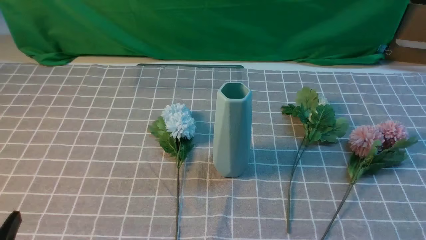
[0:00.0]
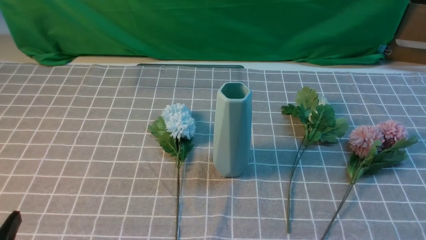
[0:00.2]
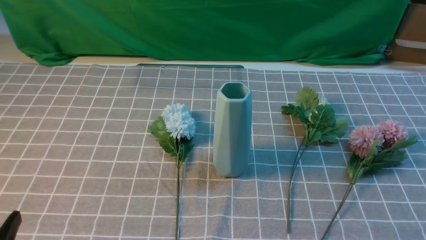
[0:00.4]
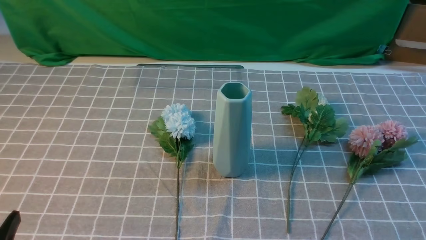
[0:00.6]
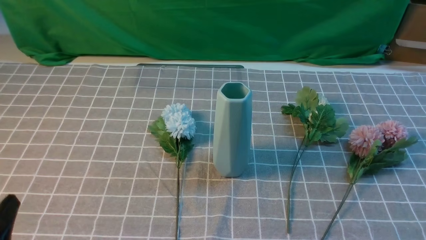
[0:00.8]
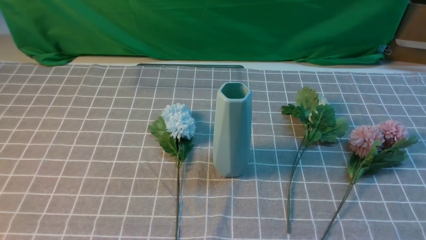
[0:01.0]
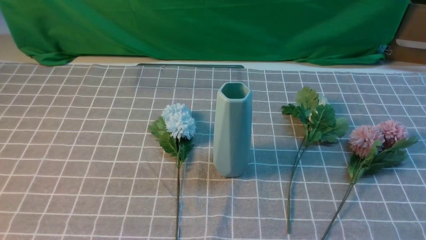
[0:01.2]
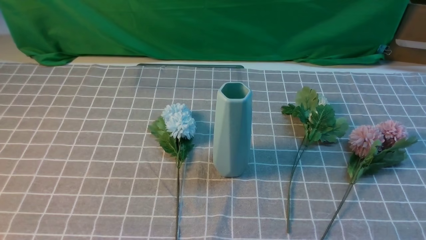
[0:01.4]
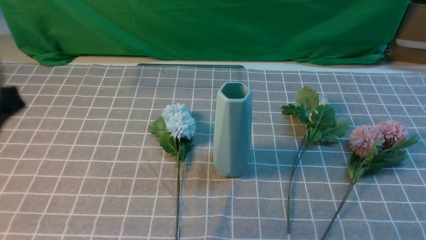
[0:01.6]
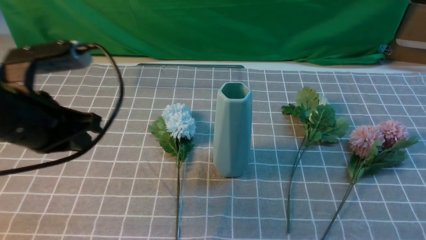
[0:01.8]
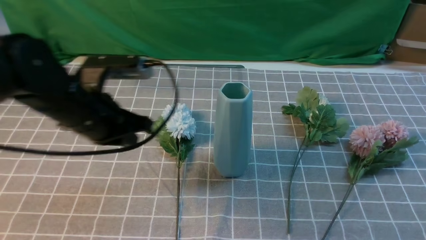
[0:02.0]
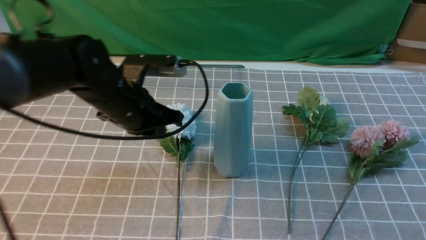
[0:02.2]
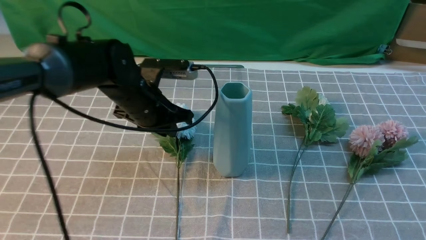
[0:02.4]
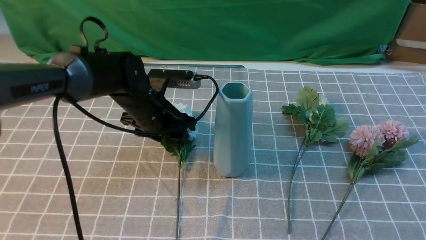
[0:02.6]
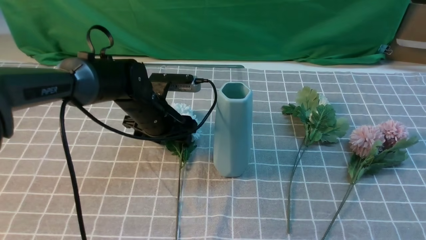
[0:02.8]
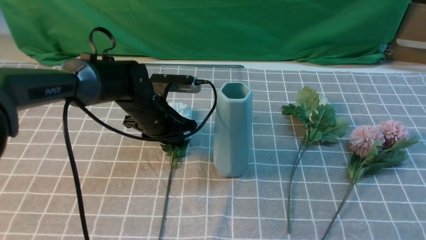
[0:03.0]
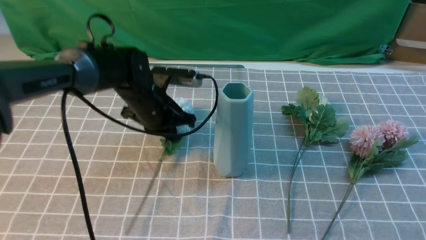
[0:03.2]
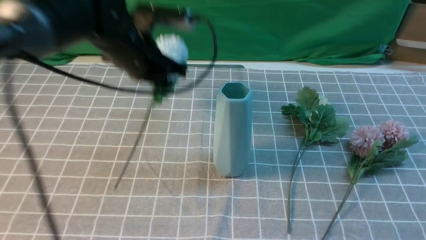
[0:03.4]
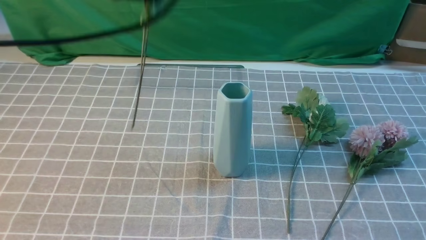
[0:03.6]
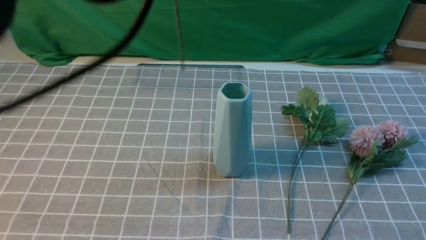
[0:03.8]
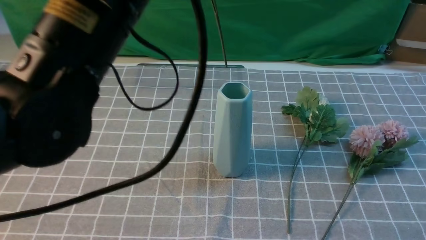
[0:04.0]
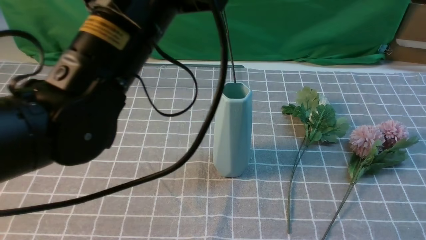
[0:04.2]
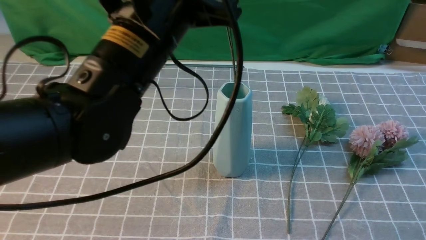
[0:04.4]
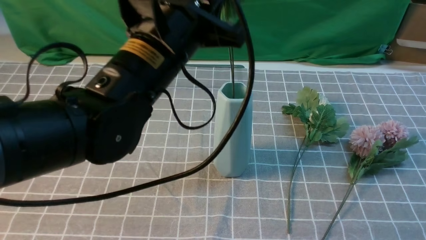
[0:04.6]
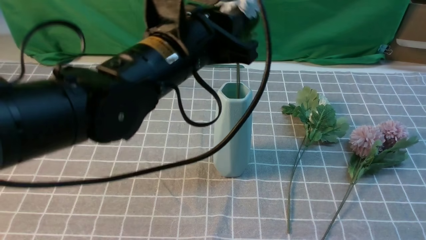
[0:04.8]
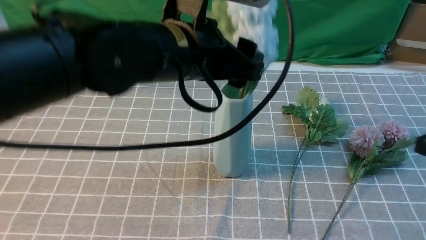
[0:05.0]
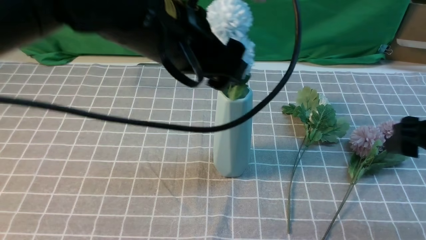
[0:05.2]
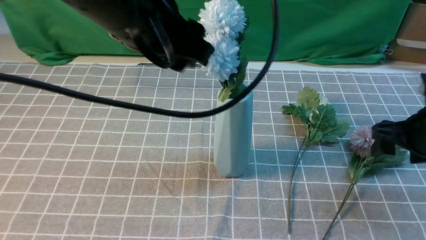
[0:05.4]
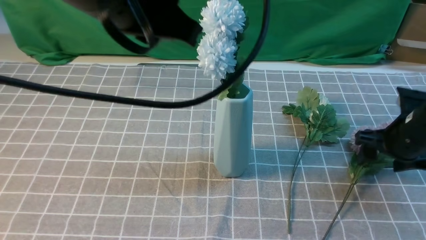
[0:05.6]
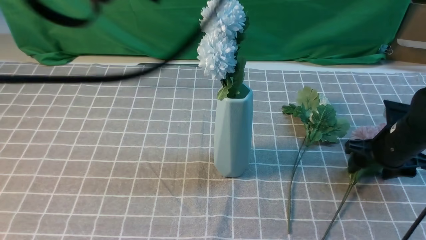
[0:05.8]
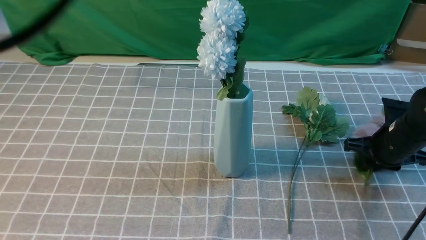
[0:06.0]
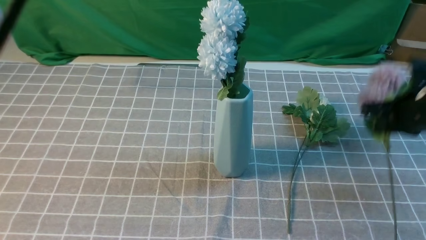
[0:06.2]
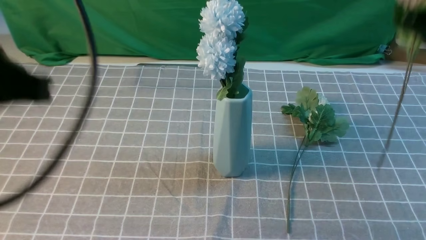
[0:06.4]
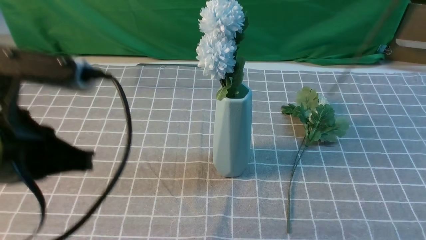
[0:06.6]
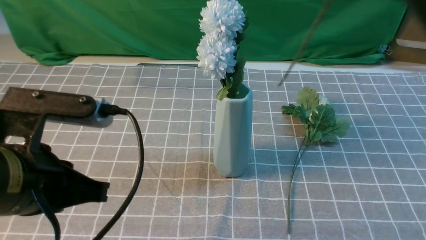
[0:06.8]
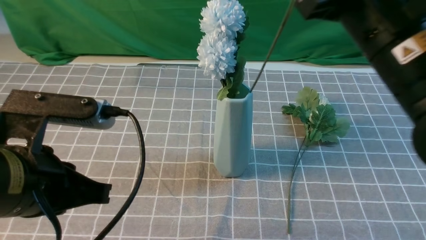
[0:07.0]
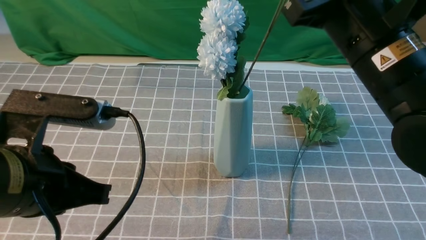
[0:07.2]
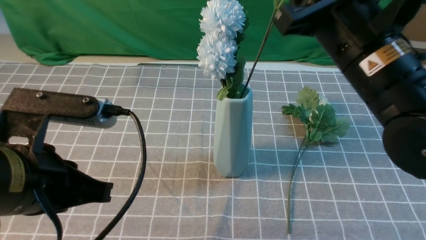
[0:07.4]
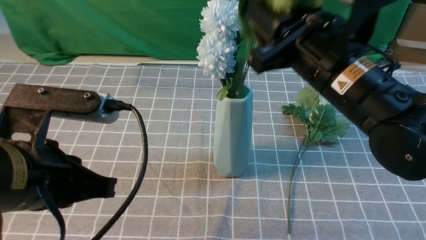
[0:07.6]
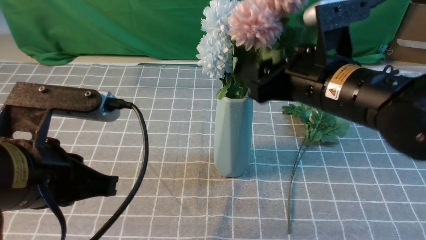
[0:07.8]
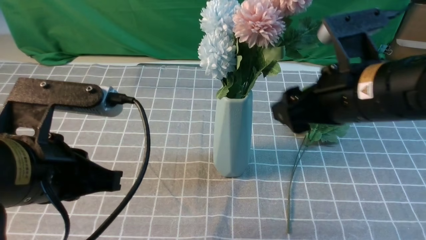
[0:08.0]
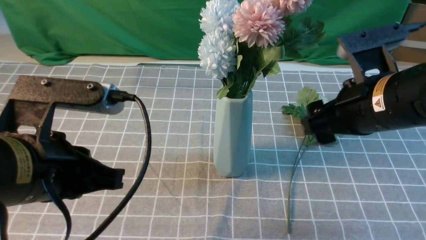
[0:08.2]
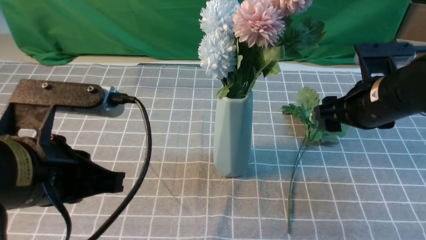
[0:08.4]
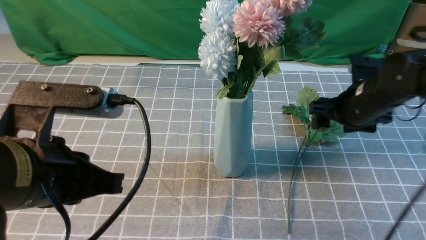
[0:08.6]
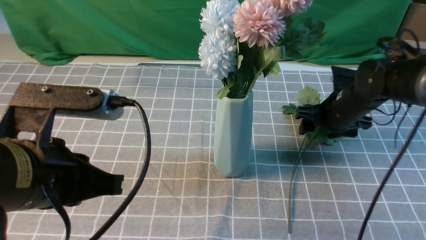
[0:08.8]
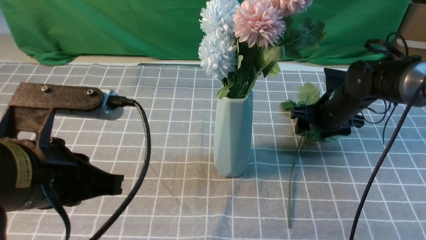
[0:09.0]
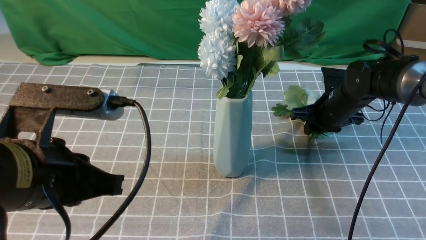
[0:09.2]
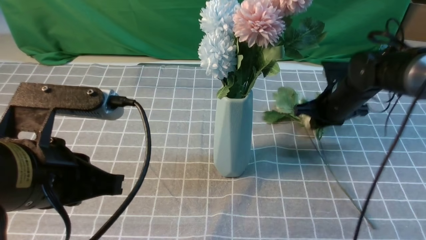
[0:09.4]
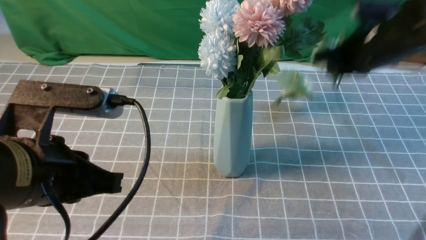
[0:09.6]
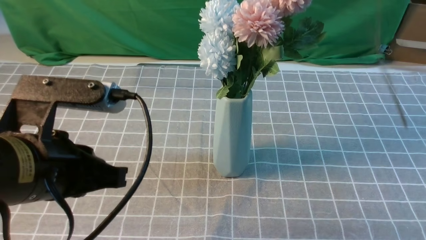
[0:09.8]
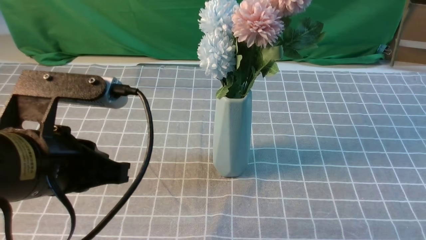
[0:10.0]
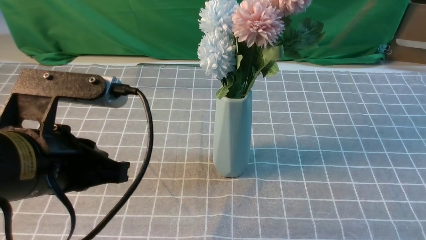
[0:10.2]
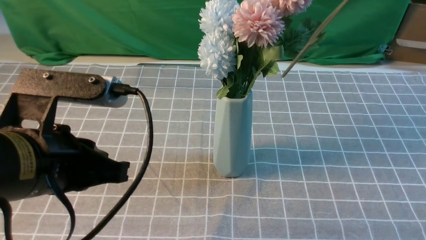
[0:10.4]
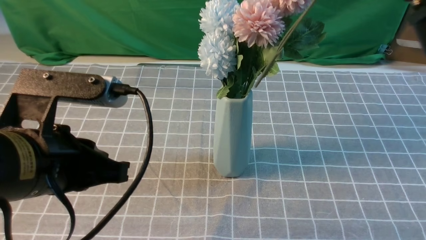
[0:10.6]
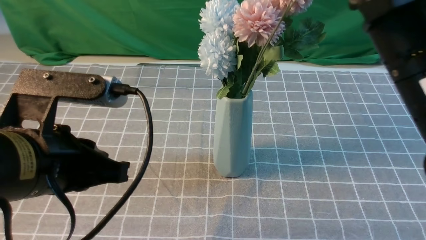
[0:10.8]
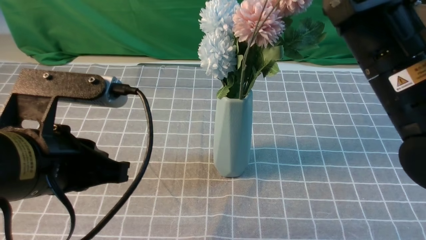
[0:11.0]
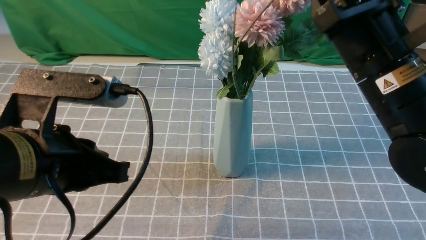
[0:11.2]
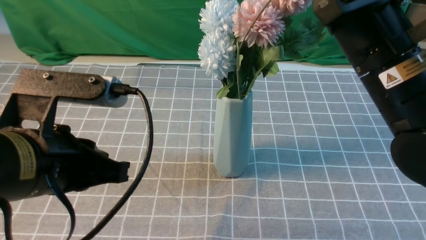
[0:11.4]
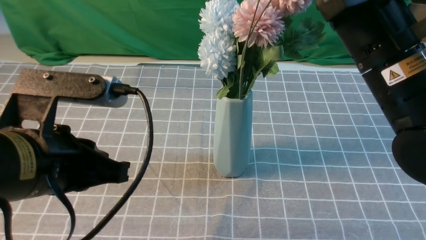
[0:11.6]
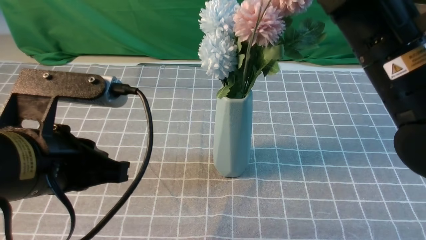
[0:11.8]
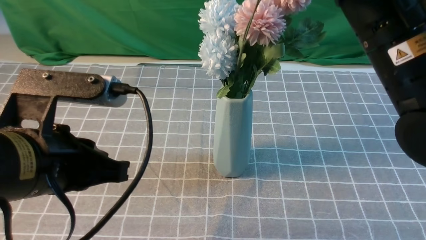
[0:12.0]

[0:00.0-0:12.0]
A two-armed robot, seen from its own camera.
Task of the whole recording: insert the flowers into the vase on the table with the grey tablecloth.
Step, 0:00.0 to 0:03.0: use the left arm to grab a bunch of fresh flowers.
Step, 0:03.4 to 0:05.2: use the left arm to insert the flowers into the vase.
Step, 0:05.4 to 0:06.0: use the right arm to grab a bunch of fresh flowers.
Step, 0:06.2 to 0:08.0: use the right arm to insert the flowers into the vase.
Step, 0:08.2 to 0:09.4: use the right arm to grab a bunch of fresh flowers.
0:00.0 to 0:01.6: The left gripper shifts some 20 cm upward and forward, and closes its fingers.
0:01.6 to 0:03.0: The left gripper shifts about 30 cm forward, downward and to the right, and opens up, while the right gripper moves upward and forward, roughly 10 cm, and closes.
0:03.0 to 0:04.4: The left gripper goes some 25 cm upward and backward, and closes up.
0:04.4 to 0:06.0: The right gripper travels forward and downward by roughly 25 cm, and opens, then closes again. The left gripper moves upward, backward and to the left, some 20 cm, and opens and closes again.
0:06.0 to 0:07.6: The left gripper goes roughly 20 cm downward. The right gripper goes approximately 25 cm to the left, upward and backward.
0:07.6 to 0:09.0: The right gripper moves downward, forward and to the right, approximately 25 cm.
0:09.0 to 0:10.4: The right gripper shifts roughly 35 cm upward and backward, and closes its fingers.
0:10.4 to 0:12.0: The right gripper travels forward and to the left by some 10 cm.

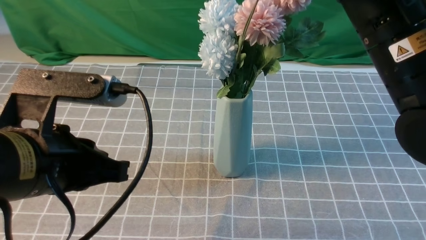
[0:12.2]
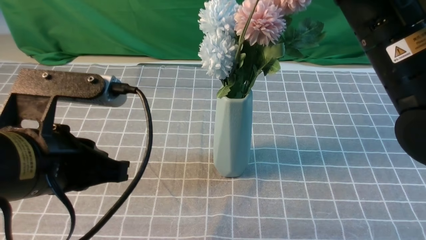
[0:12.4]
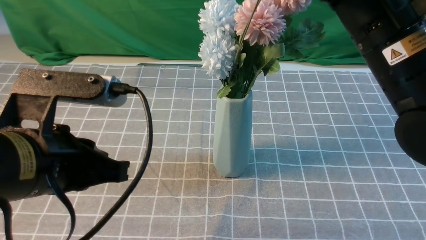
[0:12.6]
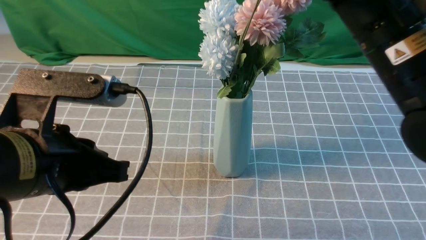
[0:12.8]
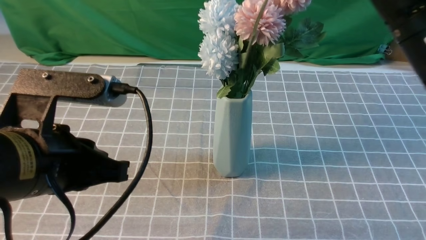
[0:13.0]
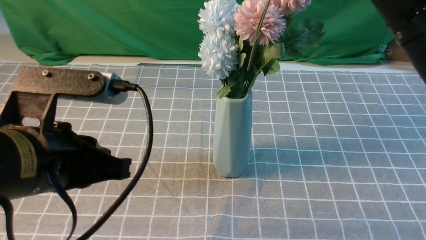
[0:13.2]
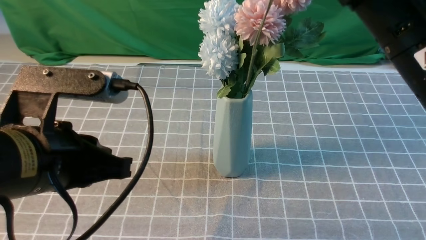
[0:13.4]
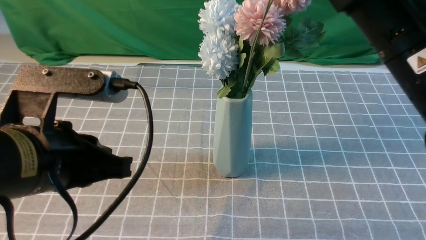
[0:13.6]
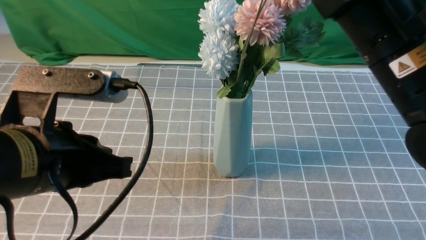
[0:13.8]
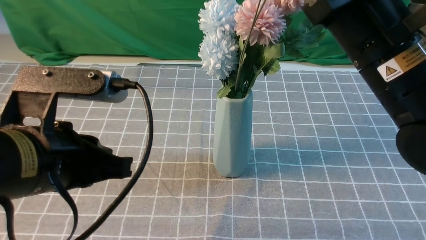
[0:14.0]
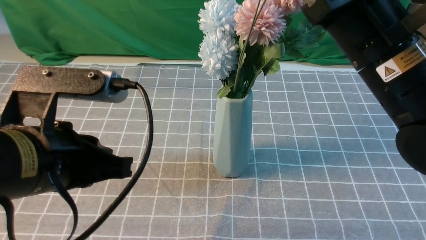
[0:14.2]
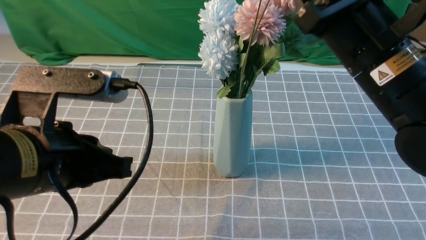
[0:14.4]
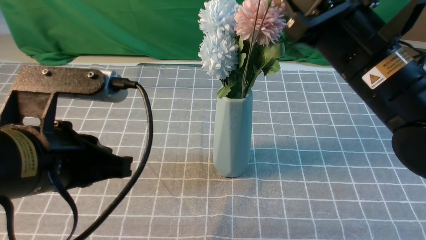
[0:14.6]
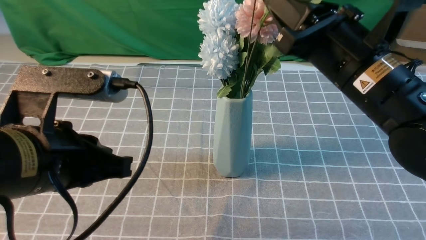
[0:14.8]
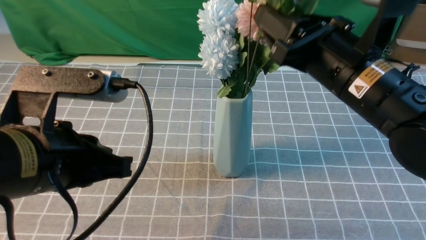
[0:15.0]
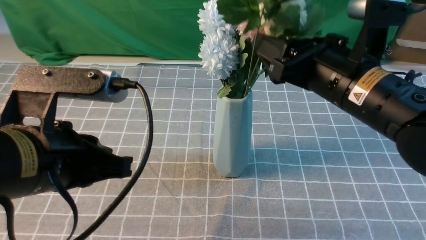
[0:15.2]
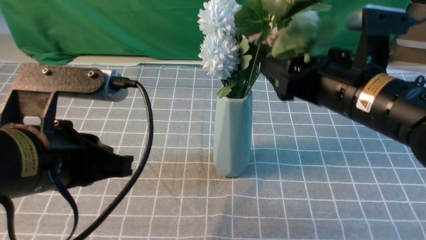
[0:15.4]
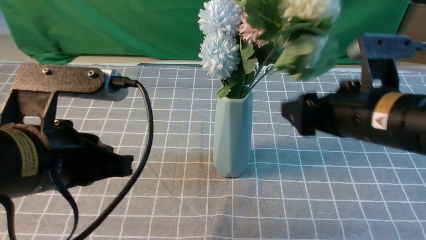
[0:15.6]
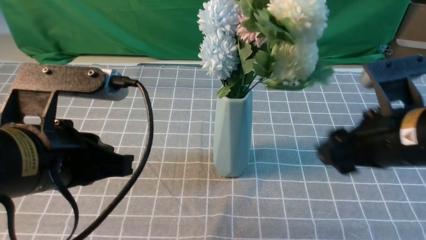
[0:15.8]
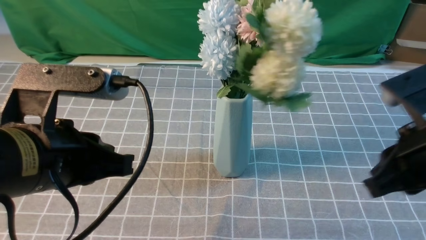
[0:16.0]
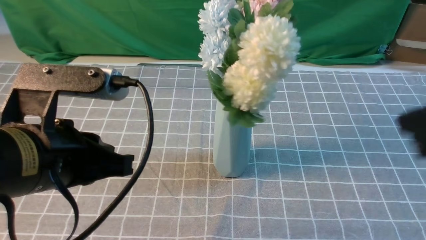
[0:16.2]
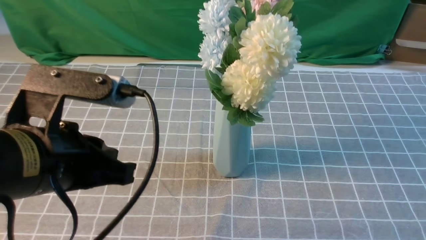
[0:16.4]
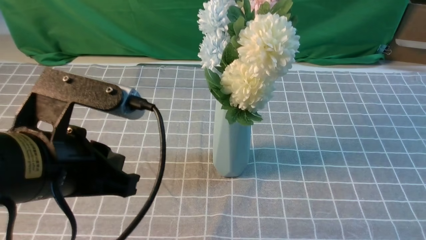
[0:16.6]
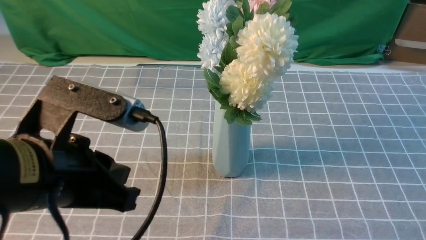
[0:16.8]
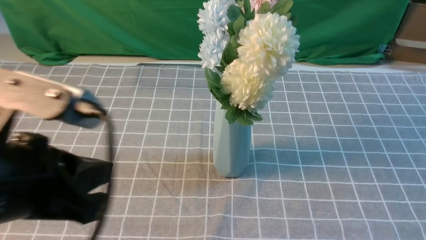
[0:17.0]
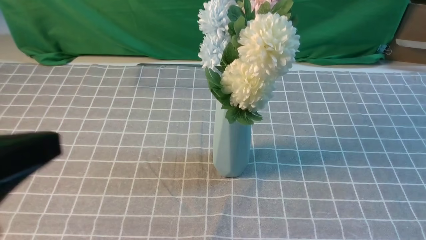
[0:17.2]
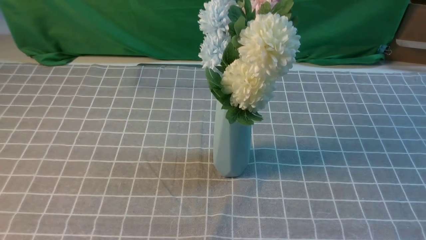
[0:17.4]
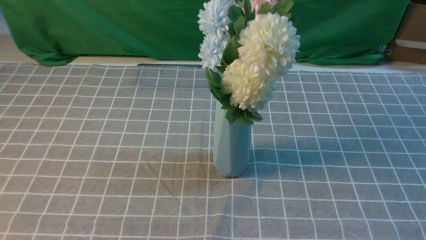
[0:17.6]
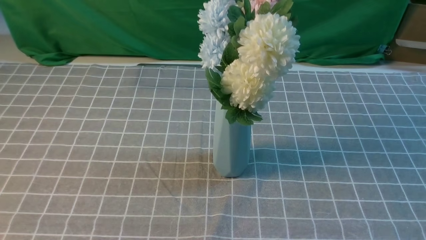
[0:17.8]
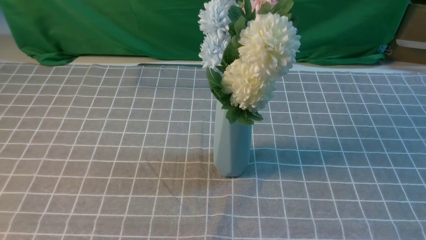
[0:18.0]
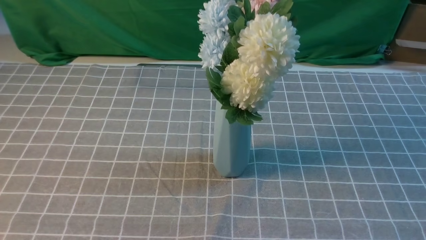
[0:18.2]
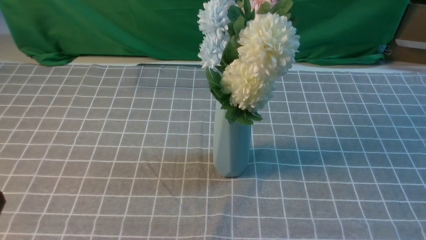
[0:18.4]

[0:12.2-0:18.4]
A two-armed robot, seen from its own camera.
Task of the whole recording: insert the flowers into the vase on the table with the grey tablecloth.
Step, 0:12.2 to 0:15.6: use the right arm to insert the flowers into the vase.
0:12.2 to 0:13.8: There are only small adjustments of the grippers.
0:13.8 to 0:15.4: The right gripper heads downward, covering some 5 cm, and opens.
0:15.4 to 0:16.8: The right gripper moves backward and to the right, some 30 cm, and closes its fingers.
0:16.8 to 0:18.4: The left gripper travels to the left, downward and backward by approximately 15 cm.
